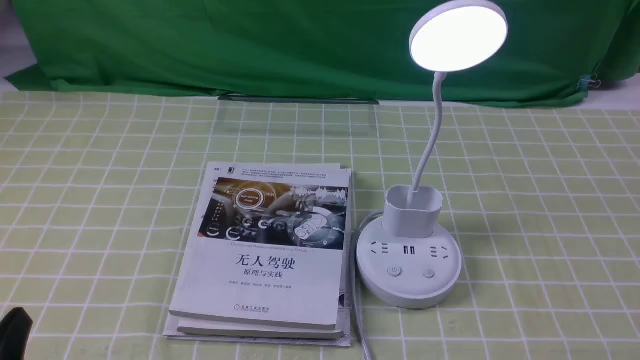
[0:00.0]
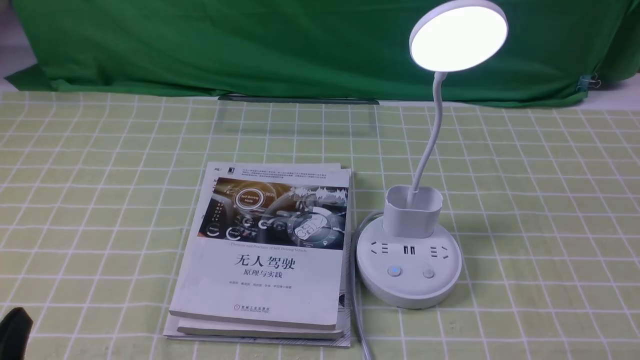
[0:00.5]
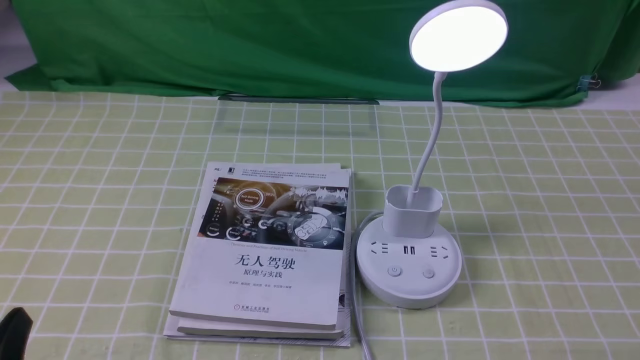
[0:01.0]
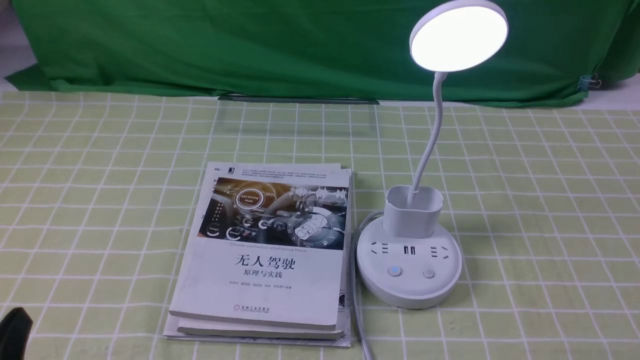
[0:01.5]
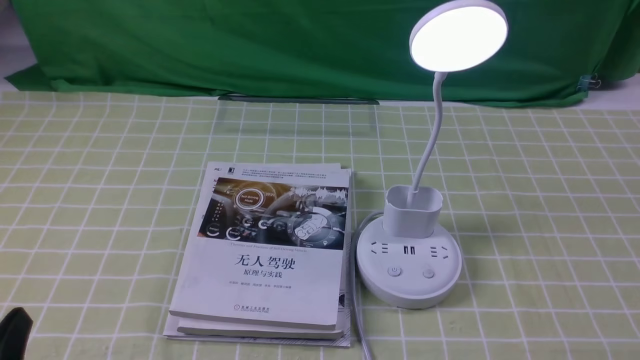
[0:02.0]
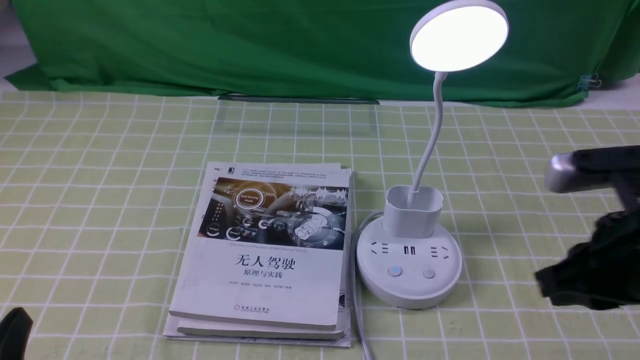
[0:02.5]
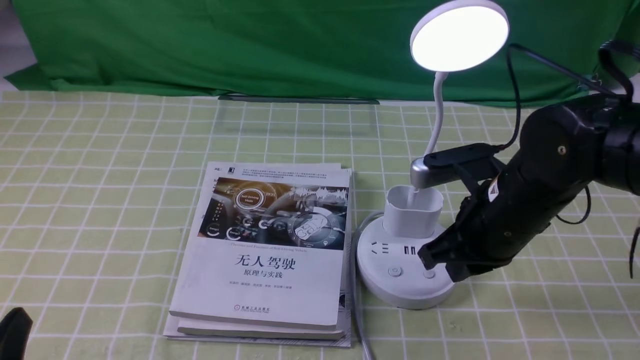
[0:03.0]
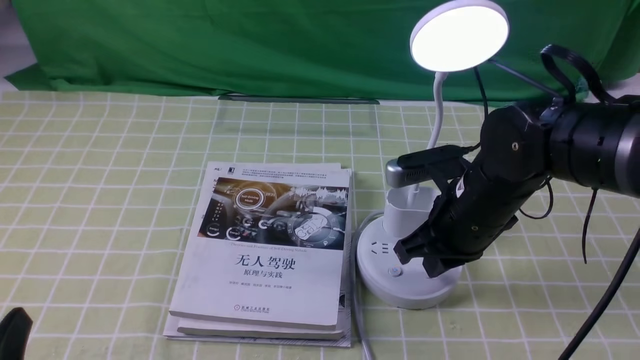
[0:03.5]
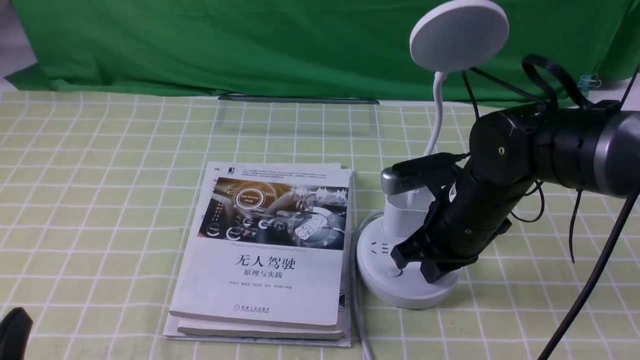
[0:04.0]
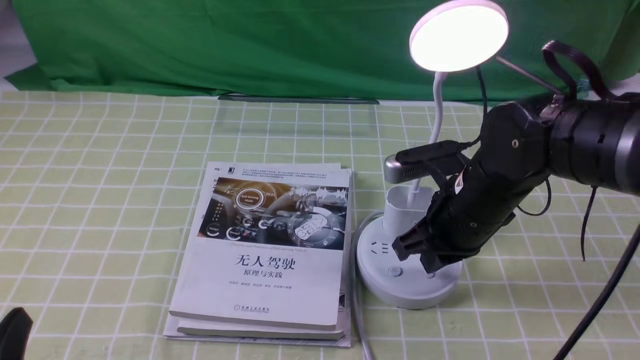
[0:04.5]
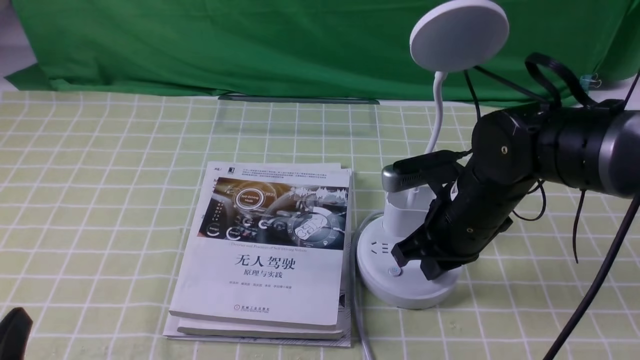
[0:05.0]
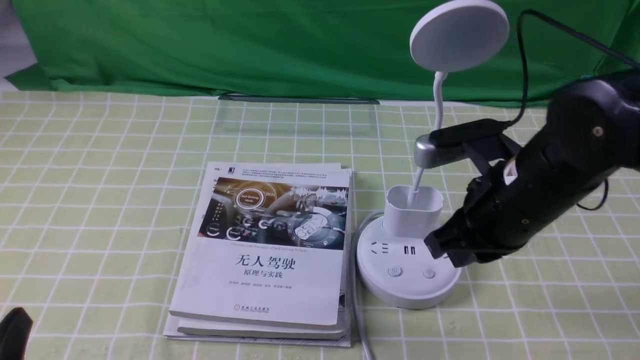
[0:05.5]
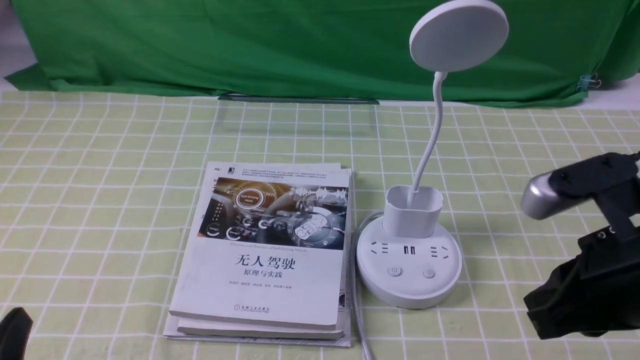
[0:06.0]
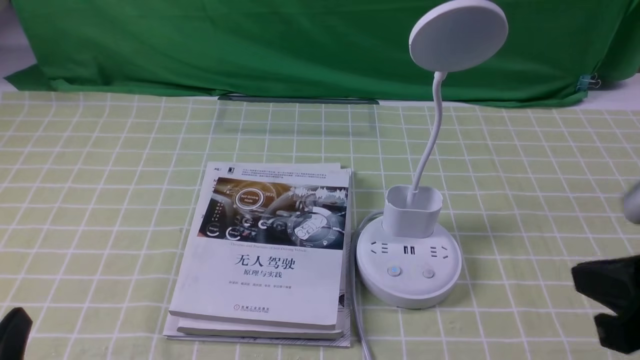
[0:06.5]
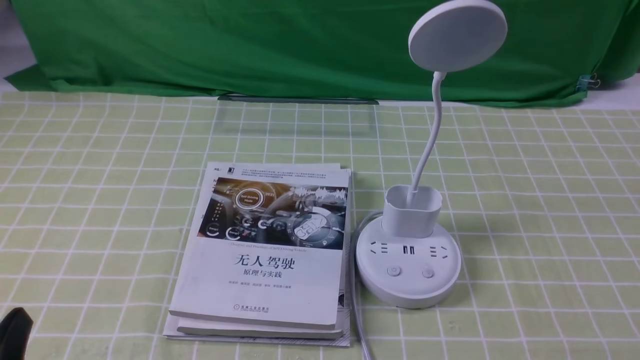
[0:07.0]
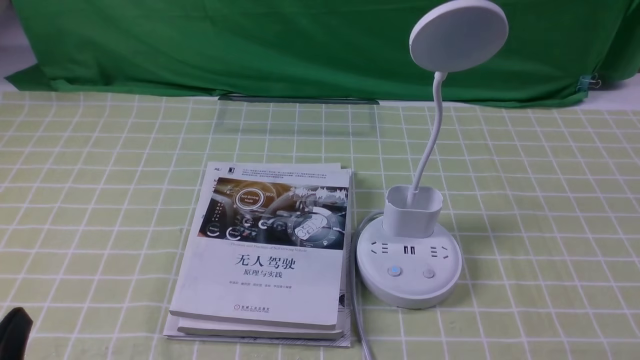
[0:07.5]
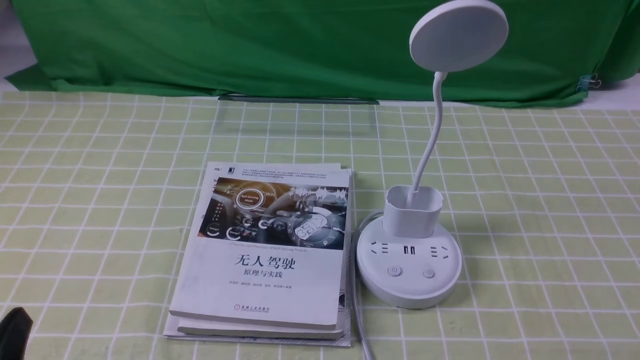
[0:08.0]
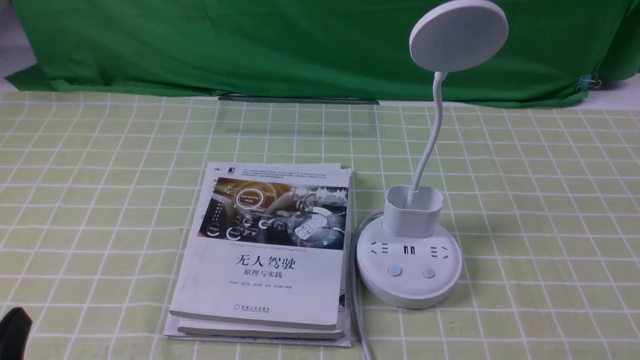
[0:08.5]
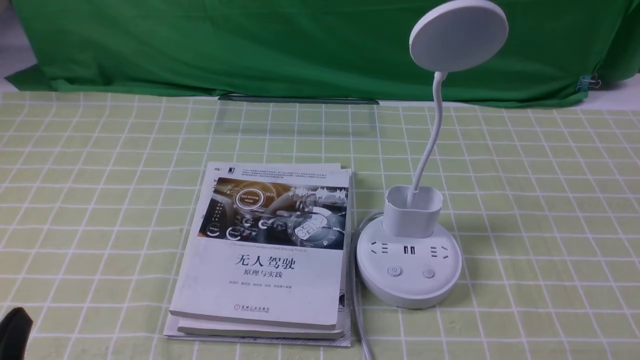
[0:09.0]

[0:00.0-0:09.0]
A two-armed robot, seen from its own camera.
Task of the whole recording: turn off the desk lamp on the green coffee tablecloth by hand.
Step, 0:00.0 to 0:05.0: use the right arm to press the button switch on the lamp holder.
0:02.0 to 0:04.5: The right gripper goes about 30 cm forward and to the left.
0:04.5 to 0:07.0: The right gripper heads backward and to the right, covering about 30 cm.

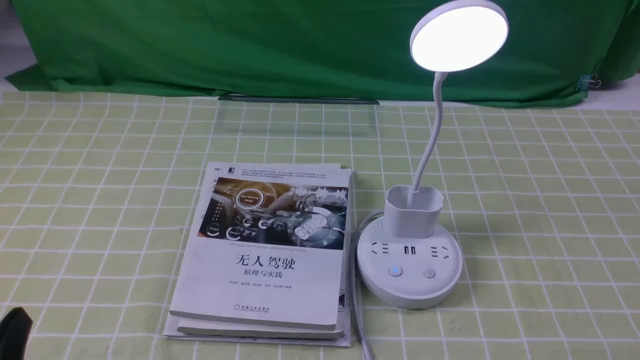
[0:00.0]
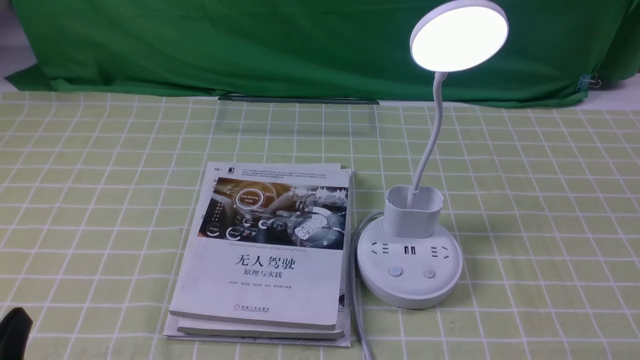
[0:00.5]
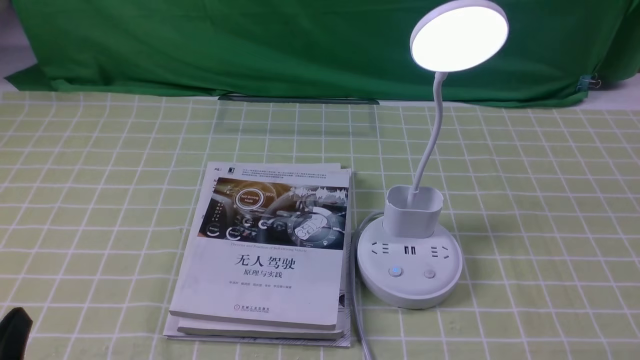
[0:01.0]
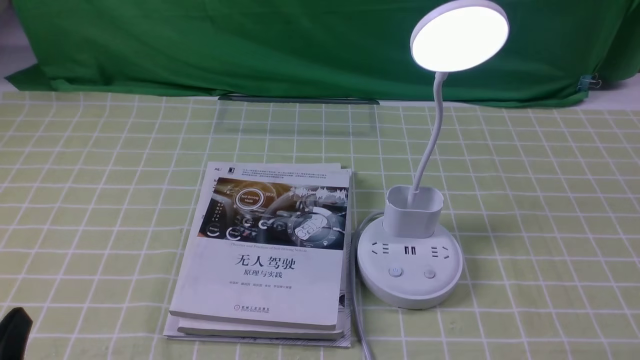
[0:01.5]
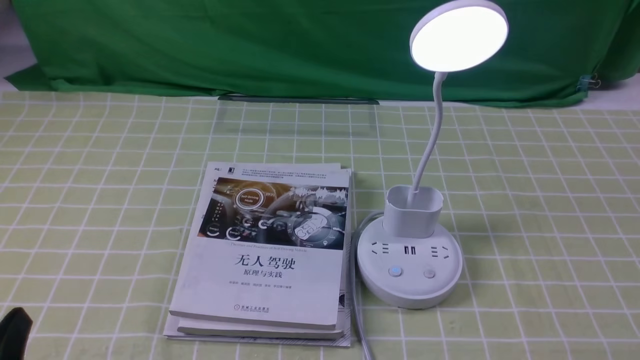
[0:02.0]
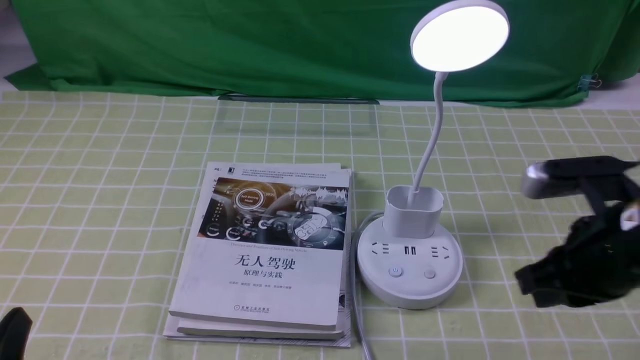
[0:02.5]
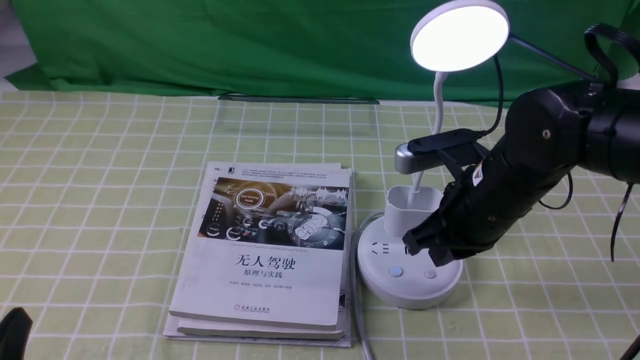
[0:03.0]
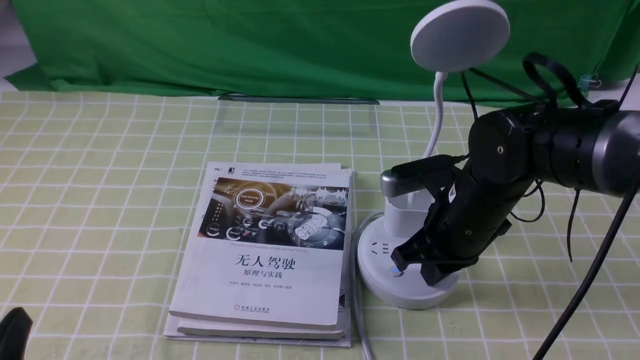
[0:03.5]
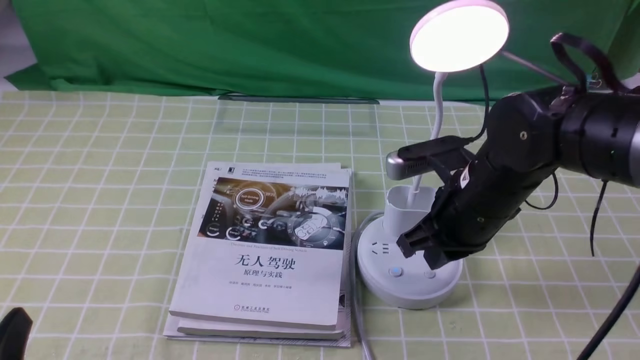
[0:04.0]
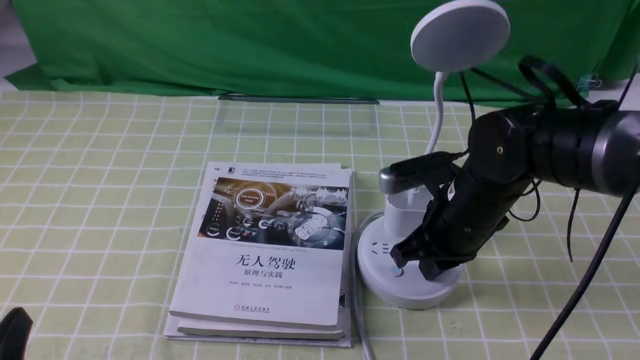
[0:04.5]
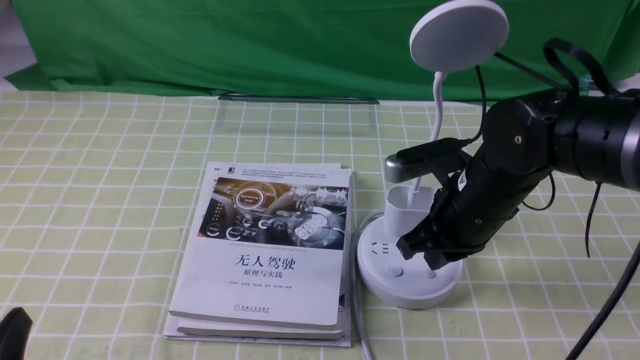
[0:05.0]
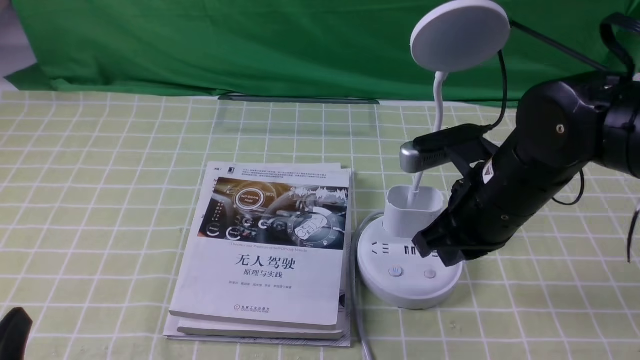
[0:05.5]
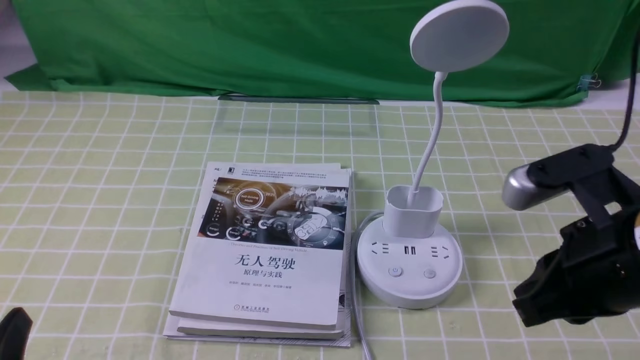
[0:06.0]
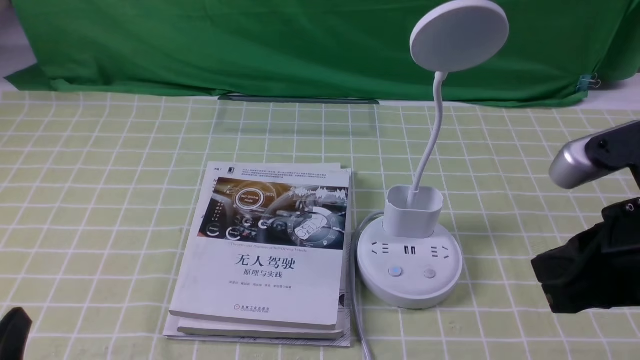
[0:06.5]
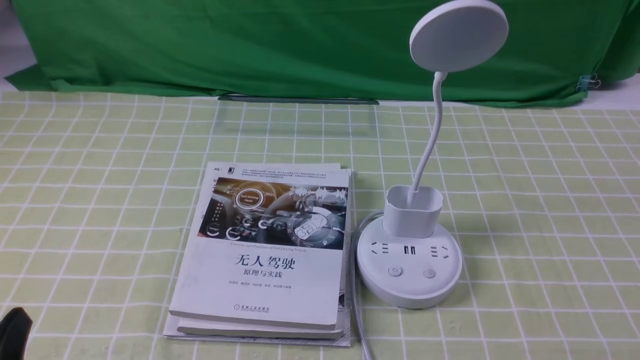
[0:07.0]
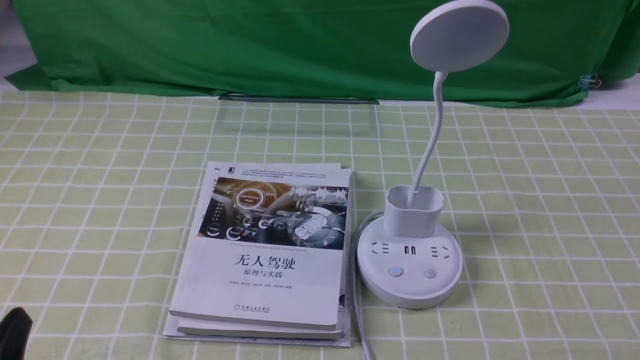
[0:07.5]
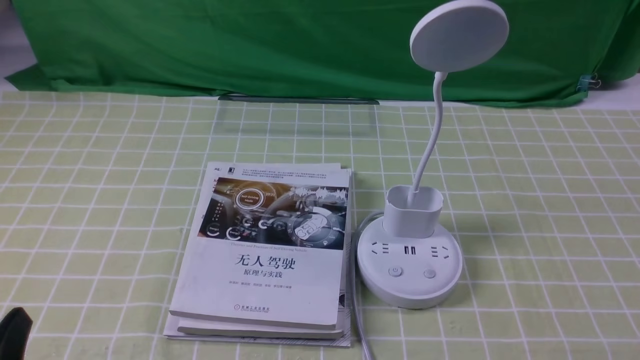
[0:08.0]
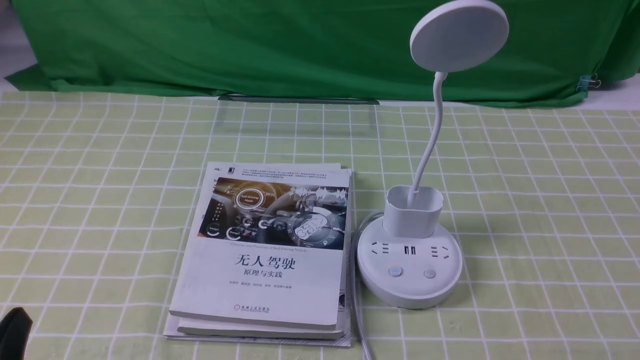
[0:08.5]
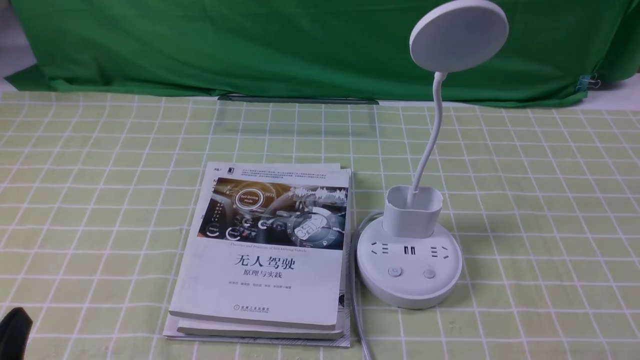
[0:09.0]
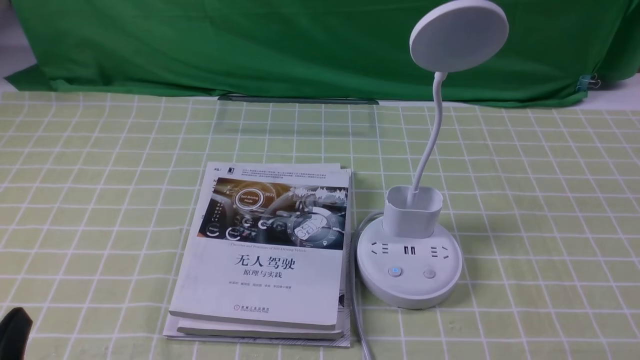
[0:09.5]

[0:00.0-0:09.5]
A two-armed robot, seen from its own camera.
Task of the whole recording: turn off the desk lamp on the green coffee tablecloth by hand.
Step, 0:00.0 to 0:05.0: use the right arm to press the button switch on the lamp holder.
0:02.0 to 0:04.0: The right gripper goes about 25 cm forward and to the left.
0:04.0 to 0:05.5: The right gripper ends up about 5 cm from where it was.
0:05.5 to 0:07.5: The right gripper moves backward and to the right, roughly 30 cm.
